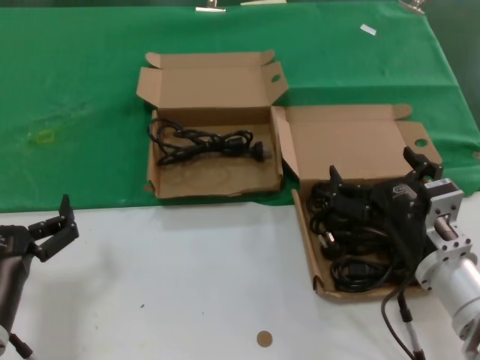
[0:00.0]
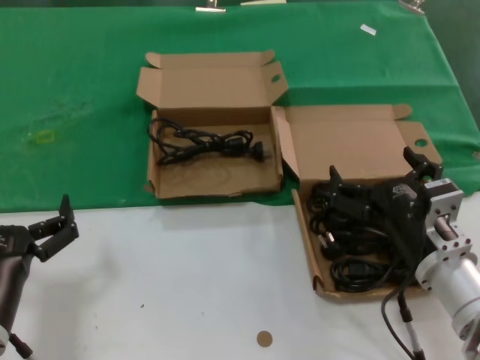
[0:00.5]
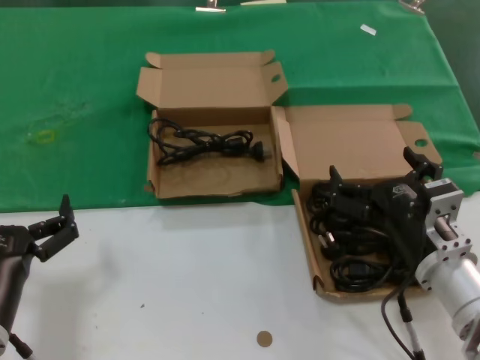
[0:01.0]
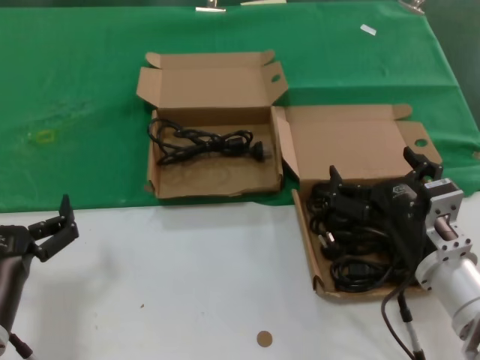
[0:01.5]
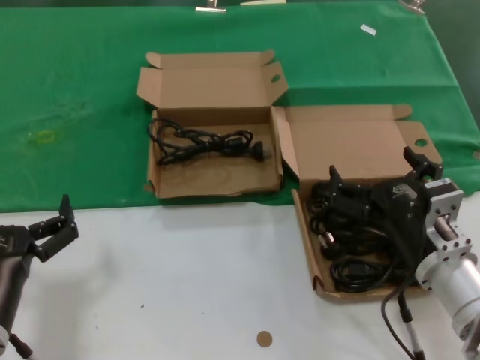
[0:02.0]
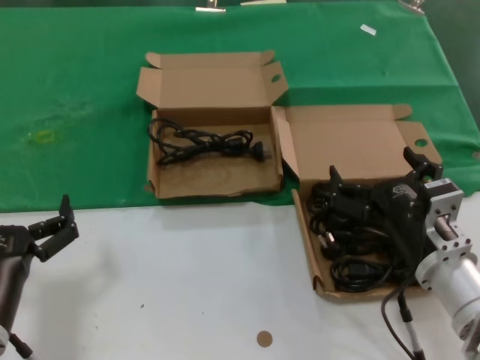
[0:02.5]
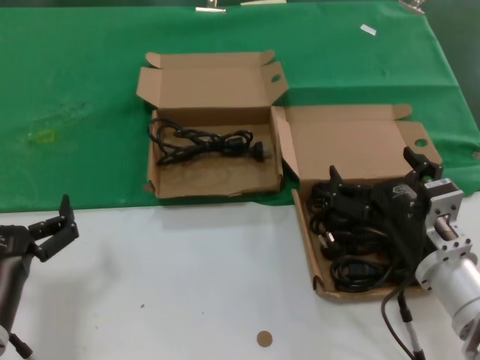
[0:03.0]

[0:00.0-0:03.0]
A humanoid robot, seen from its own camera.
Task of the whole recording: take the parts from the box containing them and put them into an empty box.
0:00.0 to 0:03.0: Both hands stay put.
